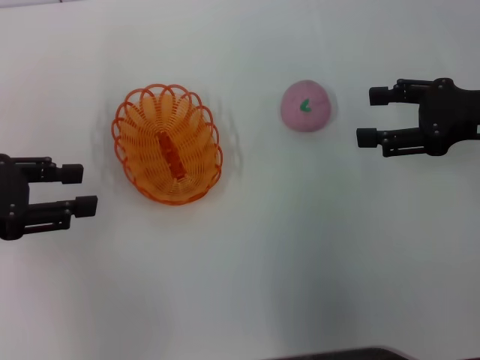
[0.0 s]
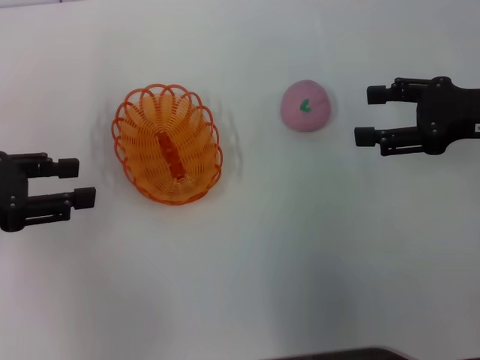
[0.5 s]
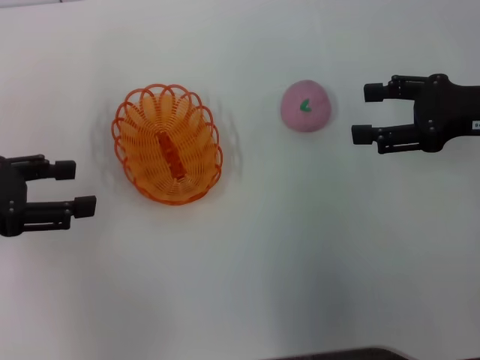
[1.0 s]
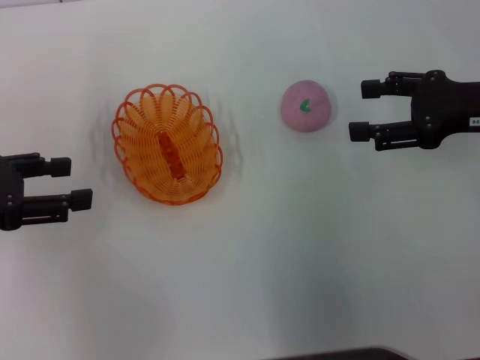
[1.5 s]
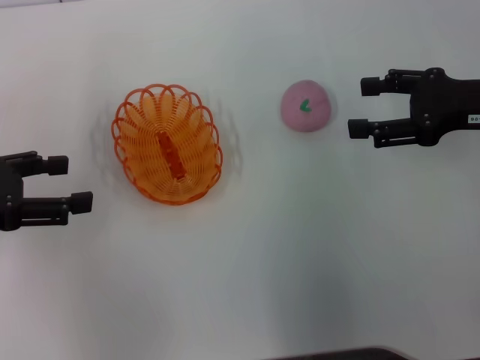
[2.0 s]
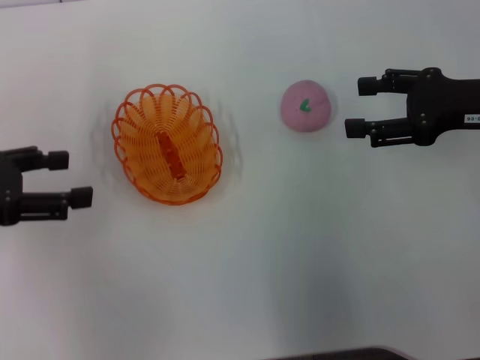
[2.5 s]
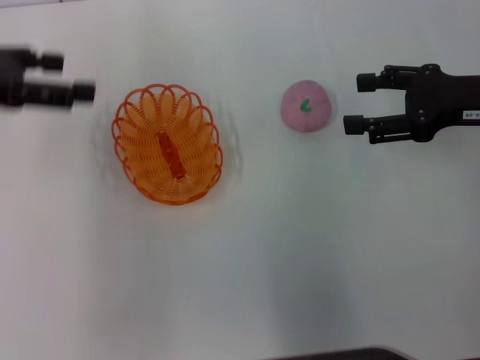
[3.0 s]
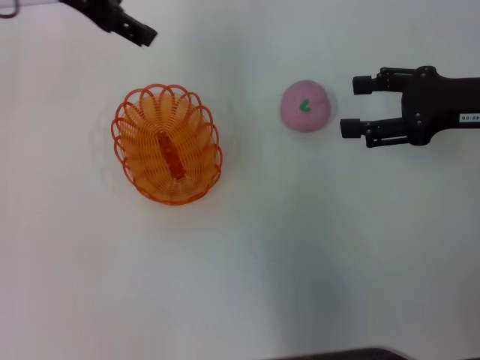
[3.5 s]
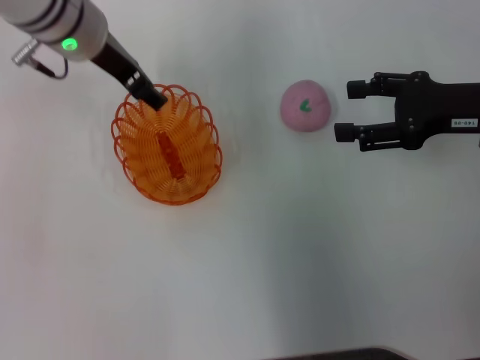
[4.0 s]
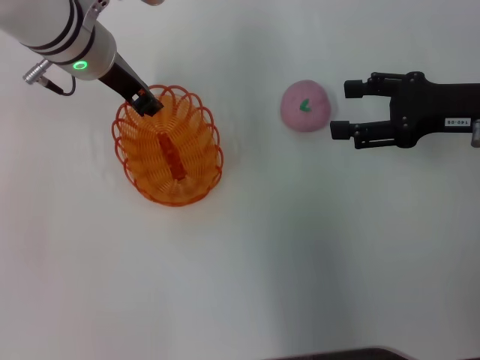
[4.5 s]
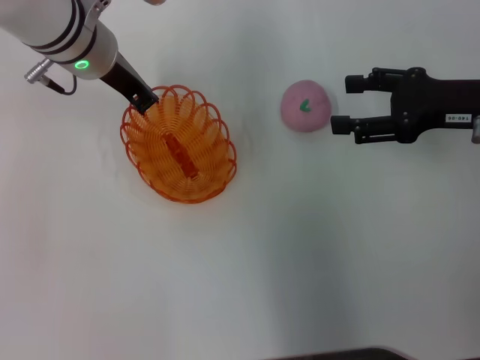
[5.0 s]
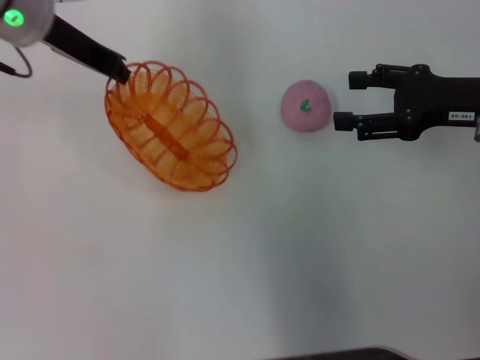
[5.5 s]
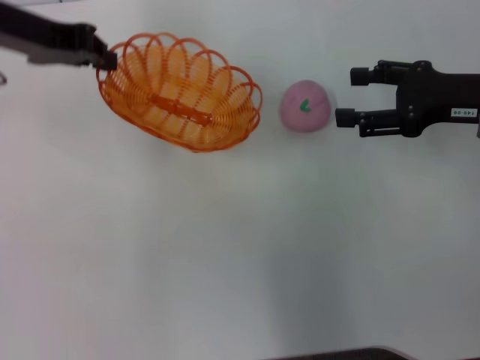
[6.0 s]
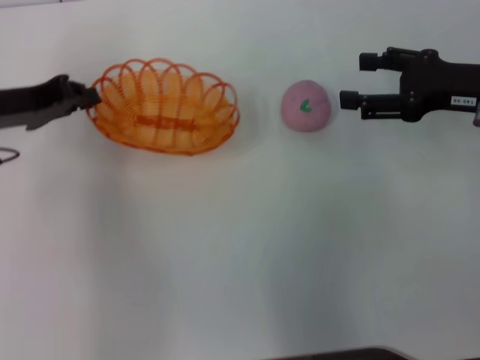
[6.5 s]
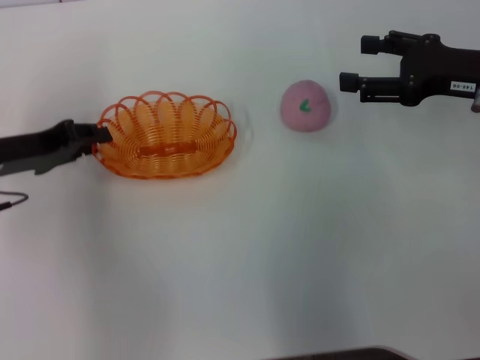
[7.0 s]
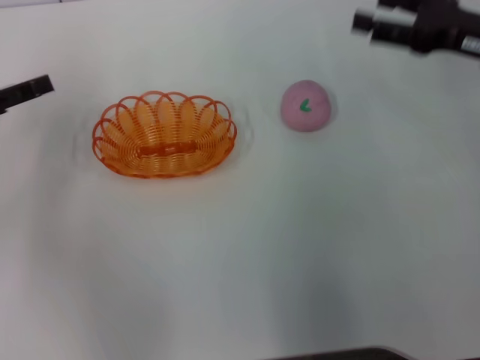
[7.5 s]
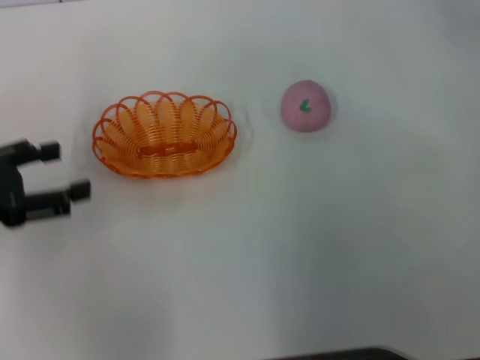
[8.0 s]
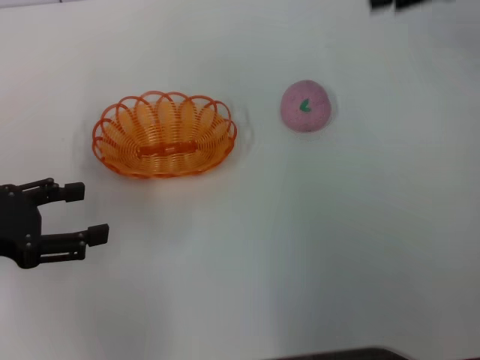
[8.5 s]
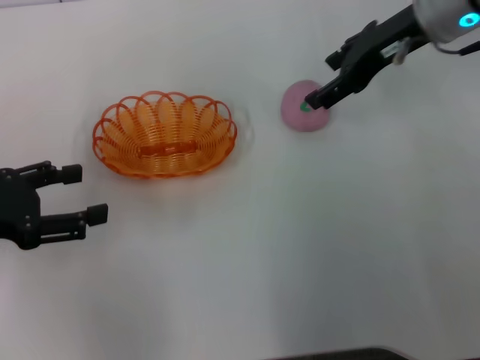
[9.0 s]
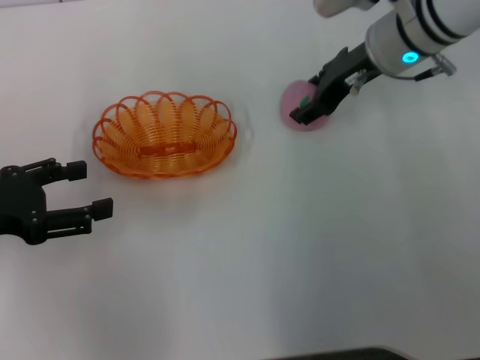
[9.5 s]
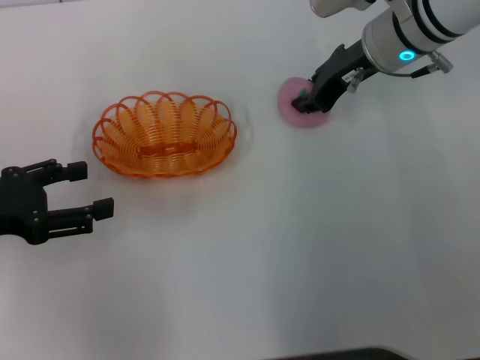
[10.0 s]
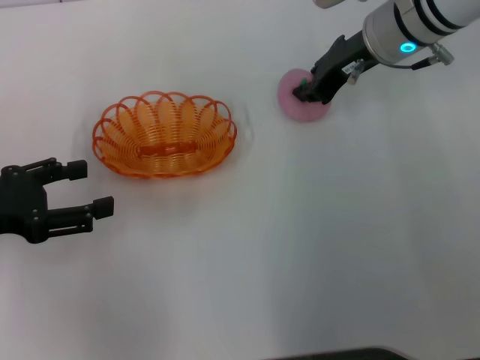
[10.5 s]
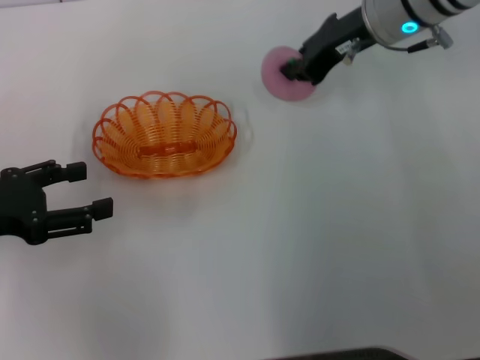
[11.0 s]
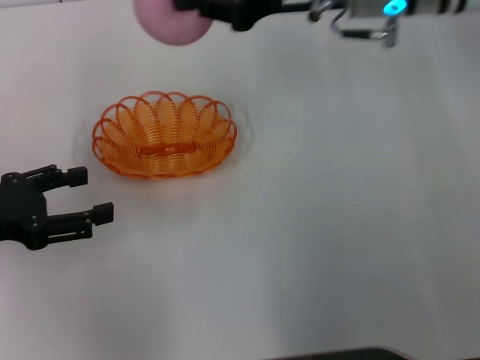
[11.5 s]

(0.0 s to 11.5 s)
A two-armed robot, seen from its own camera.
Step, 0.0 s - 5.5 s: Pick up the basket with the left gripper.
Step, 6.0 s - 7.5 s: Place the basket in the center of view with the left gripper.
Step, 8.0 s - 11.0 s: Pick up the peach with the right gripper.
0.0 s - 2.0 s: The left gripper closes and opens again.
2.0 s - 4.0 s: The left gripper goes roughly 25 cm to the right and forward.
4.0 s - 6.0 s: The left gripper goes approximately 10 cm to the left and upward, and closes.
6.0 s - 7.5 s: The left gripper travels to the left, downward and backward by approximately 15 cm, and opens.
7.5 s - 9.5 s: The left gripper travels backward by about 5 cm. The right gripper shifts roughly 15 cm to the left and forward.
9.5 s - 11.5 s: The right gripper moves upward, some 5 cm, and closes up.

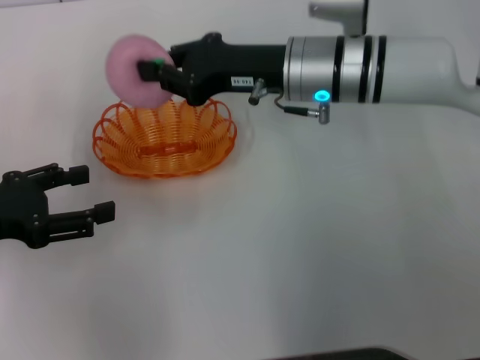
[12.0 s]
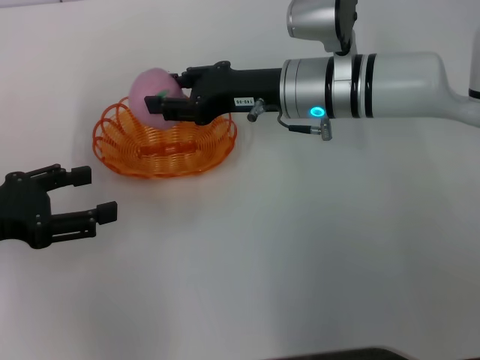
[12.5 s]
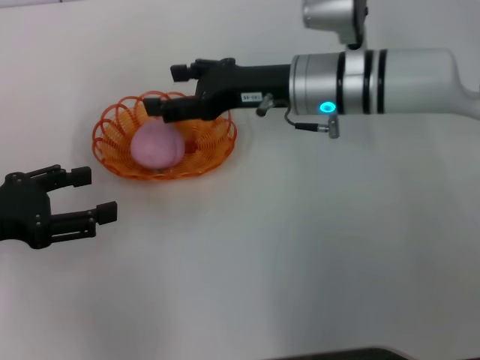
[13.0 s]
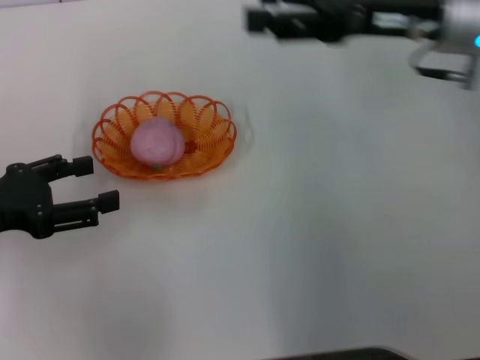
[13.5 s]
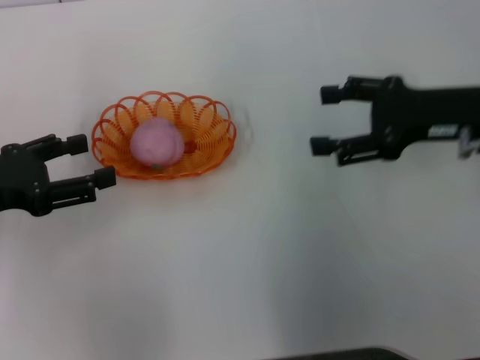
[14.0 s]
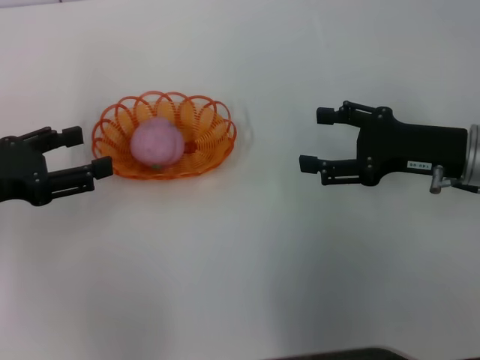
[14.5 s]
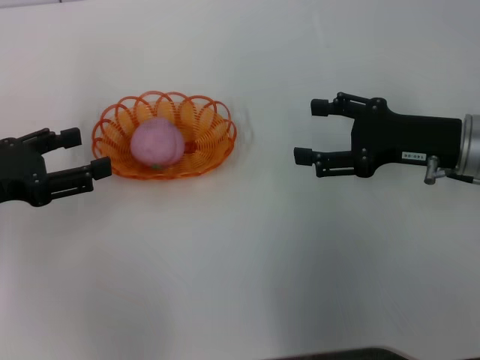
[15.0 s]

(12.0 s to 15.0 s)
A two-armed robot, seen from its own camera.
Step, 12.0 s - 13.5 s: Place the peach into the basket with the right gripper.
12.0 s - 13.5 s: The right gripper heads to the right and upward, covering approximately 15 cm, and opens.
13.5 s - 15.0 s: The right gripper moves downward and backward, some 10 cm.
